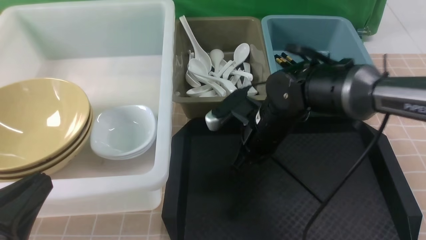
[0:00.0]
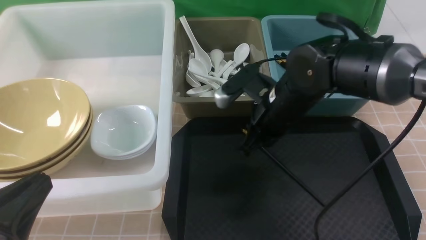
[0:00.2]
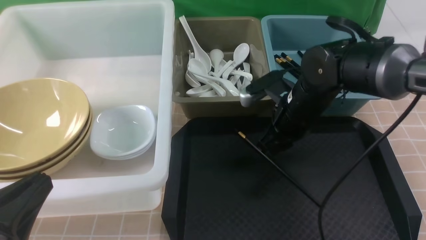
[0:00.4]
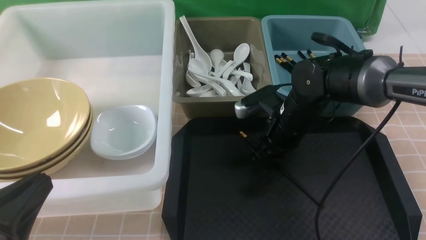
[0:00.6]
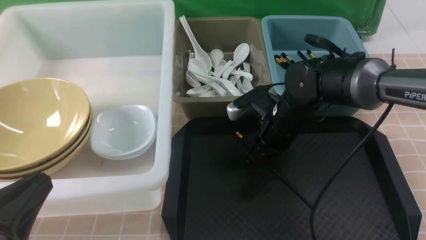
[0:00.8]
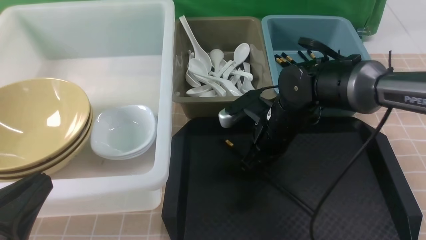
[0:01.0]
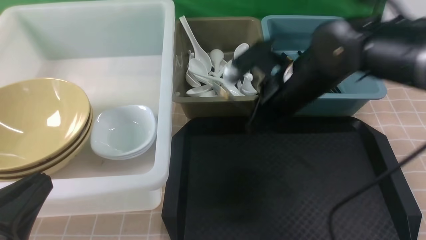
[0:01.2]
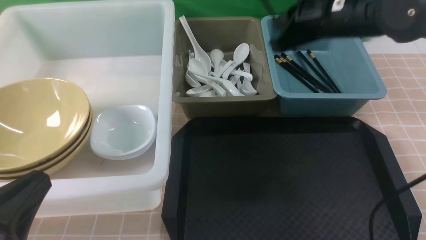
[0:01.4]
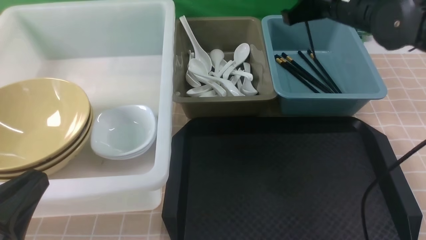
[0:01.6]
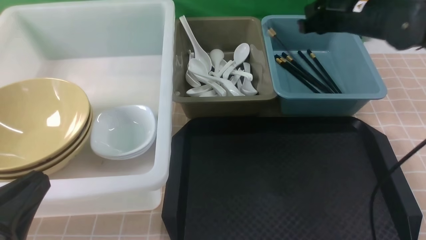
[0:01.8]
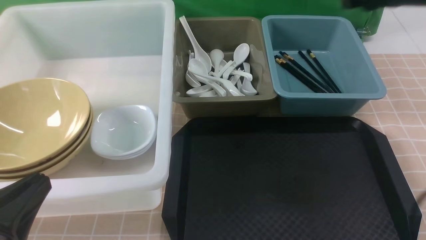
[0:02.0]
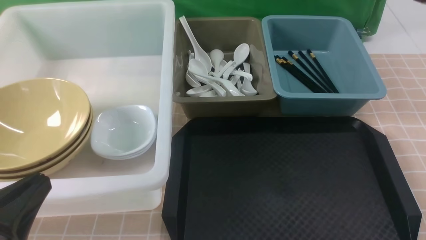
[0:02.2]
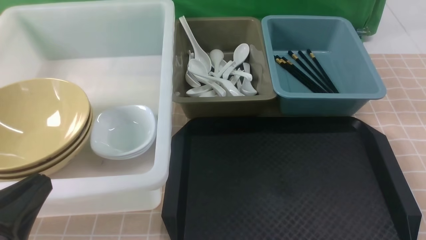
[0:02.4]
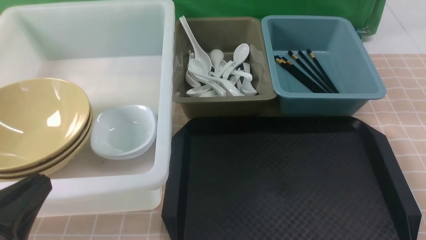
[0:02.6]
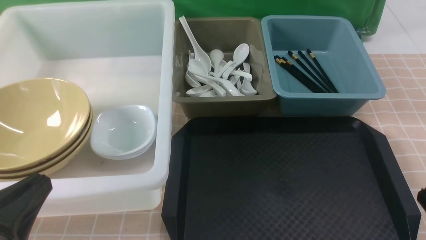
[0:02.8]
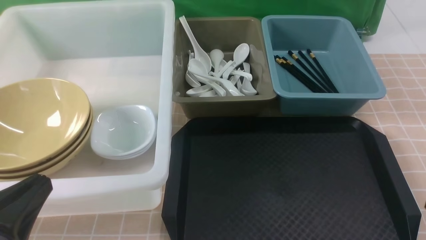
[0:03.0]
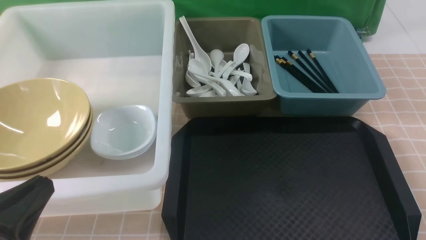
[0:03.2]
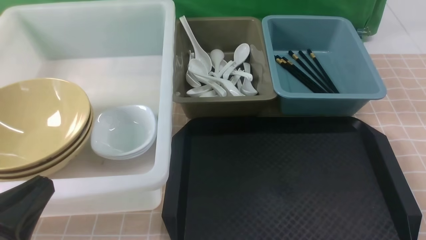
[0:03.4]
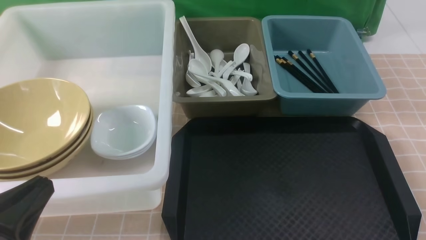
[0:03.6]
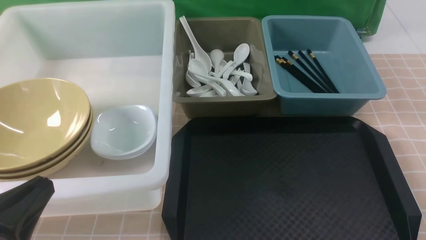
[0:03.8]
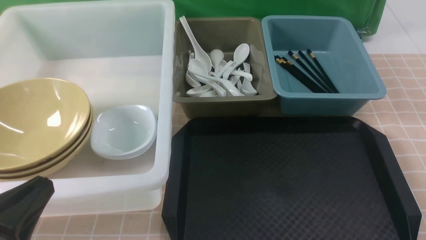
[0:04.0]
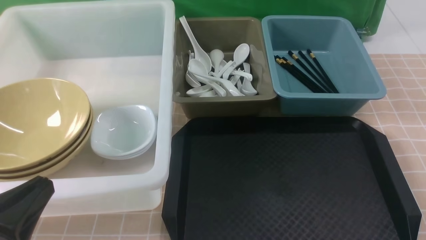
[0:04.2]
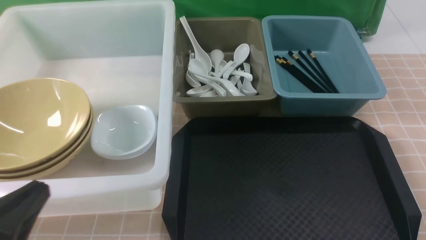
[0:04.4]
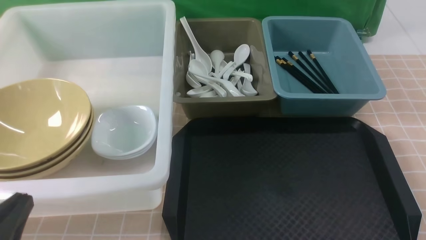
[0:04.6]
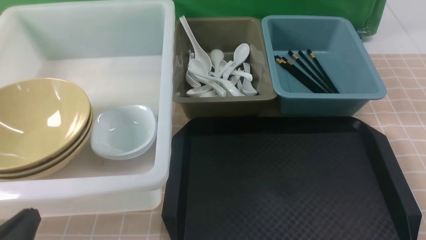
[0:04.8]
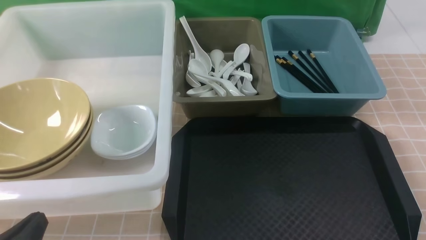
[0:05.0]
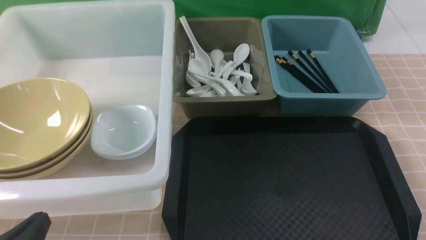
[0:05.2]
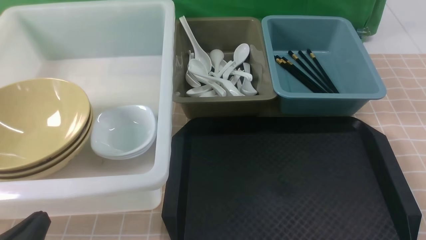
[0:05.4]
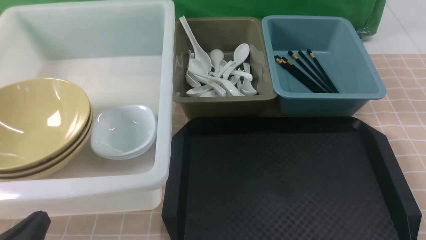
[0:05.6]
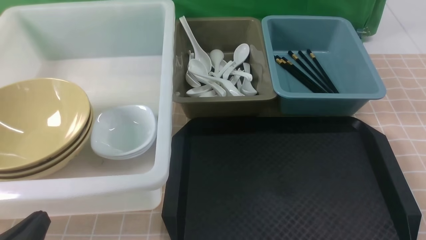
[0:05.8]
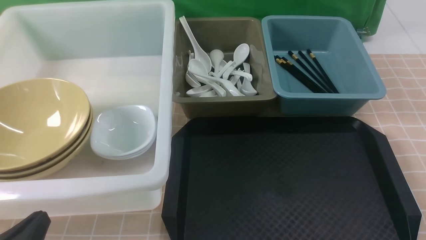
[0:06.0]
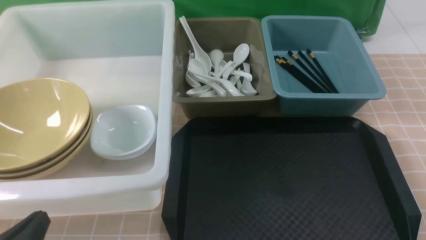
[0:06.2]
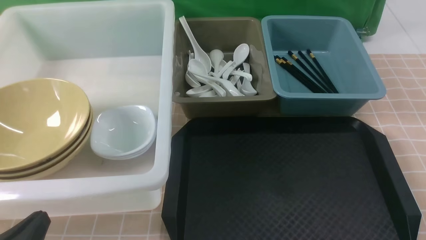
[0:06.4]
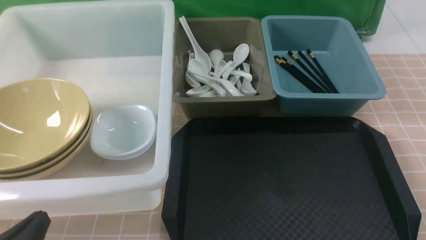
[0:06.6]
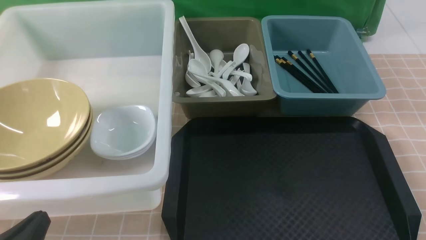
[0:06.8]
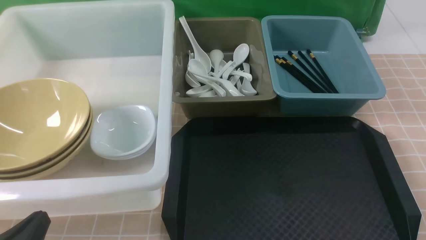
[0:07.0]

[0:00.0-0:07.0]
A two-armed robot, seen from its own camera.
Task of the whole recording: on brown table put chopsticks spoon bowls plates into blue grey white boxes.
Step, 0:00.0 to 0:01.0: use the right arm to grab a chopstick.
Step, 0:01.2 to 0:02.0: use the right arm to put a chopstick into the small storage box on the right.
0:00.0 to 0:01.4: The right gripper is displaced upward and to the right by some 15 cm, and opens, then closes once more.
0:01.4 to 0:02.8: The right gripper heads backward and to the right, covering some 35 cm, and opens and closes again.
0:04.2 to 0:05.6: The left gripper moves downward, roughly 10 cm.
0:05.6 to 0:07.0: The two grippers keep their place.
